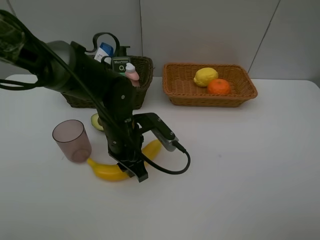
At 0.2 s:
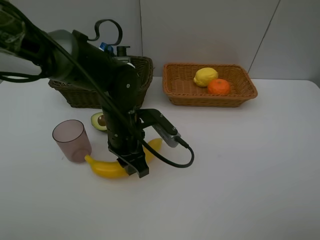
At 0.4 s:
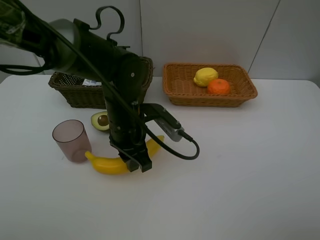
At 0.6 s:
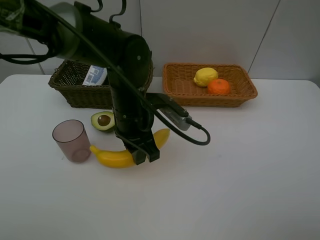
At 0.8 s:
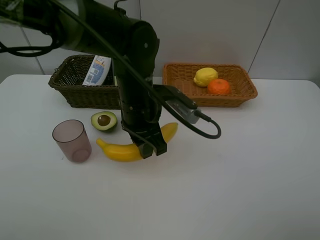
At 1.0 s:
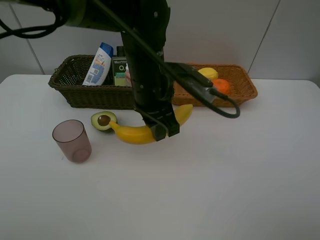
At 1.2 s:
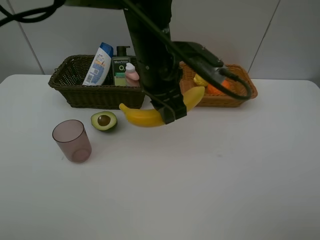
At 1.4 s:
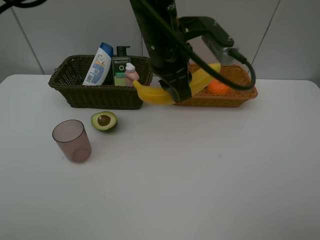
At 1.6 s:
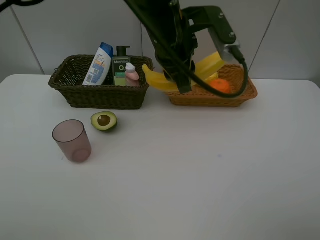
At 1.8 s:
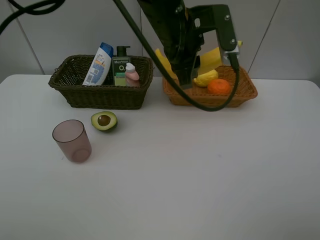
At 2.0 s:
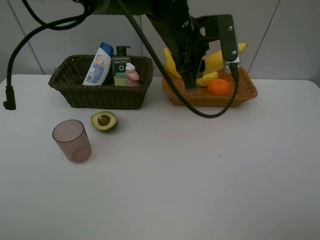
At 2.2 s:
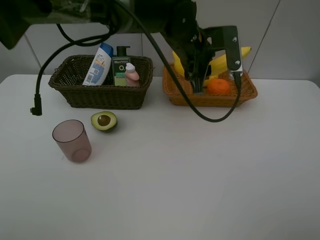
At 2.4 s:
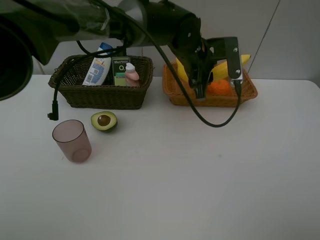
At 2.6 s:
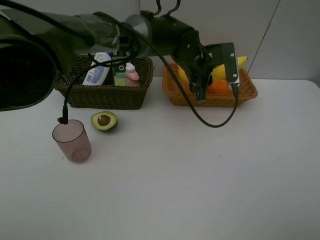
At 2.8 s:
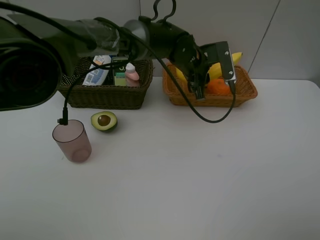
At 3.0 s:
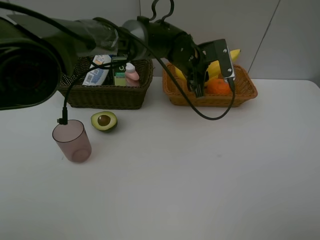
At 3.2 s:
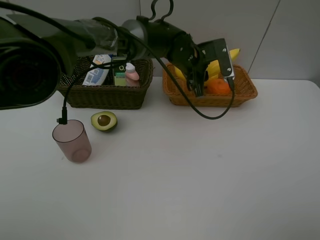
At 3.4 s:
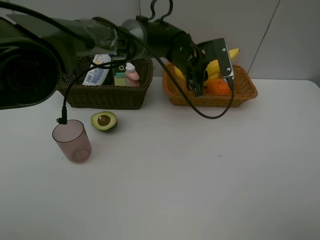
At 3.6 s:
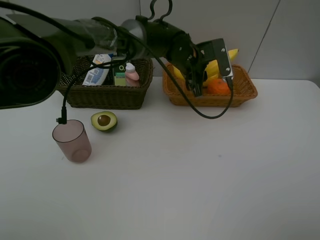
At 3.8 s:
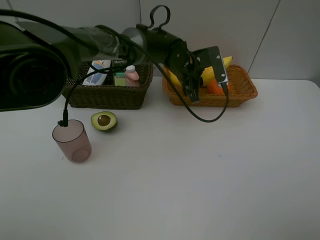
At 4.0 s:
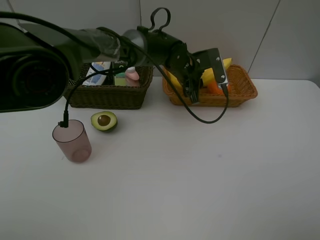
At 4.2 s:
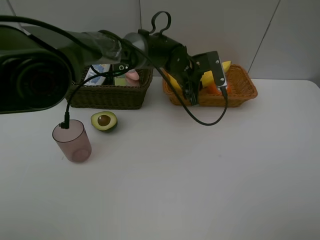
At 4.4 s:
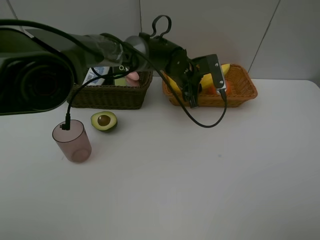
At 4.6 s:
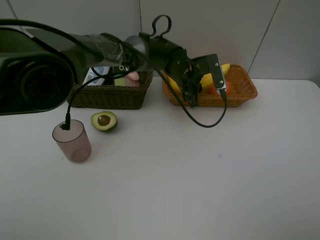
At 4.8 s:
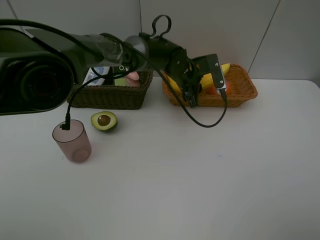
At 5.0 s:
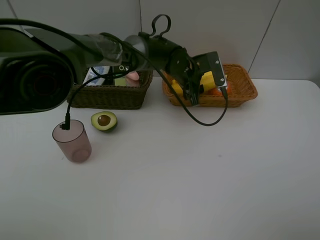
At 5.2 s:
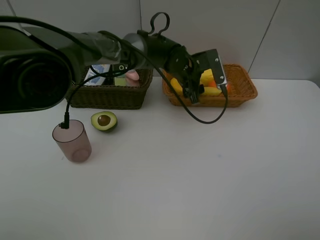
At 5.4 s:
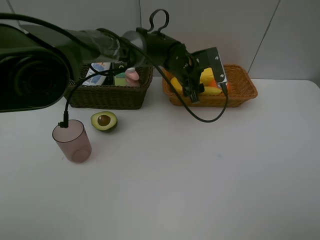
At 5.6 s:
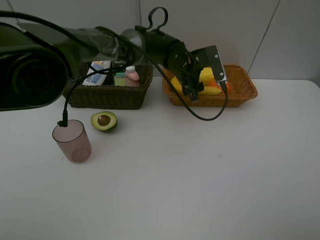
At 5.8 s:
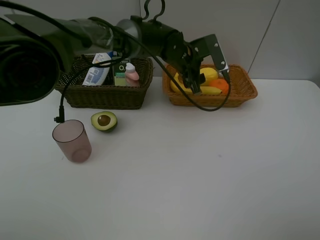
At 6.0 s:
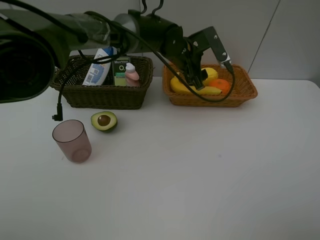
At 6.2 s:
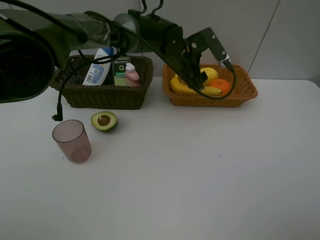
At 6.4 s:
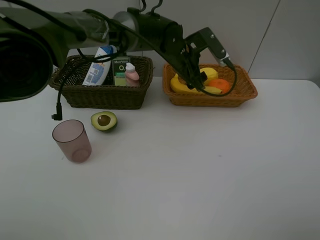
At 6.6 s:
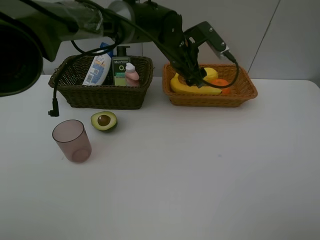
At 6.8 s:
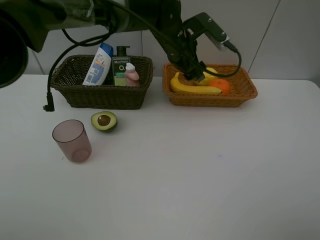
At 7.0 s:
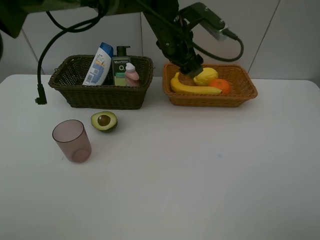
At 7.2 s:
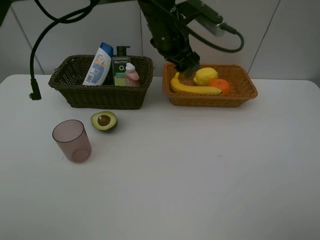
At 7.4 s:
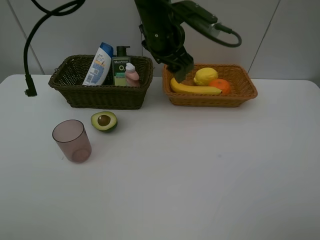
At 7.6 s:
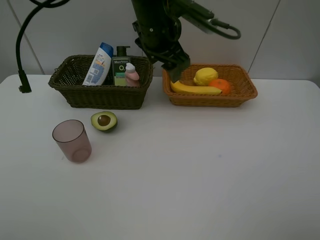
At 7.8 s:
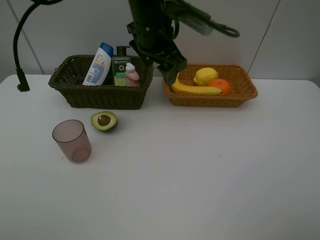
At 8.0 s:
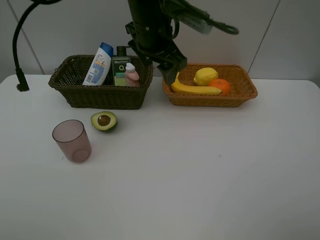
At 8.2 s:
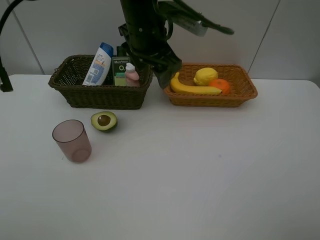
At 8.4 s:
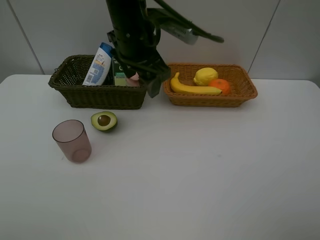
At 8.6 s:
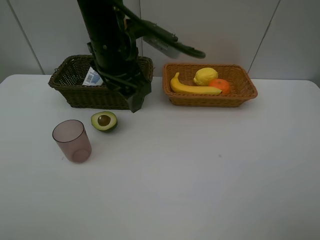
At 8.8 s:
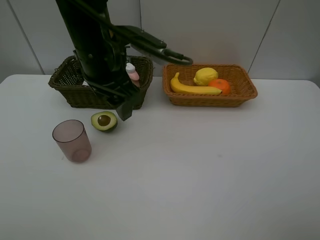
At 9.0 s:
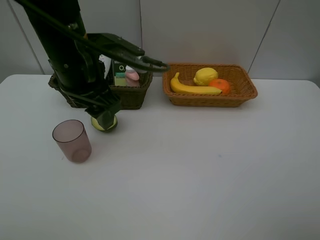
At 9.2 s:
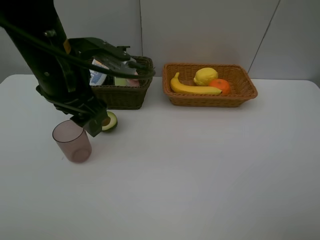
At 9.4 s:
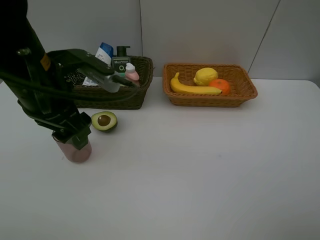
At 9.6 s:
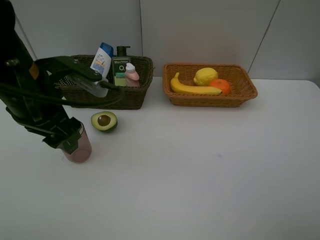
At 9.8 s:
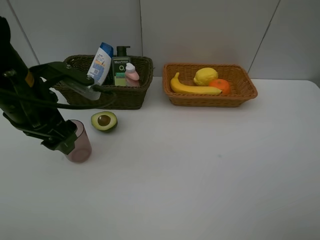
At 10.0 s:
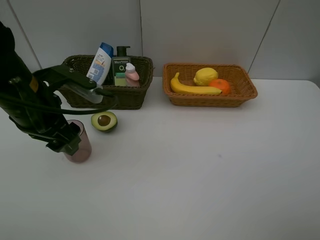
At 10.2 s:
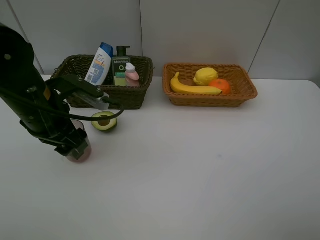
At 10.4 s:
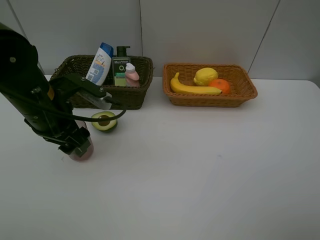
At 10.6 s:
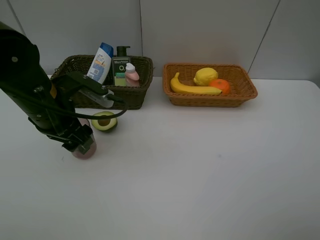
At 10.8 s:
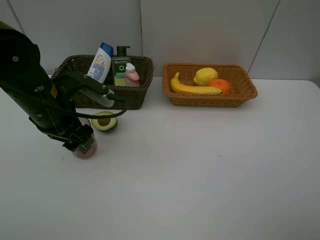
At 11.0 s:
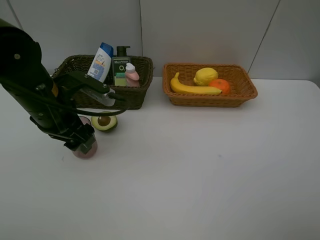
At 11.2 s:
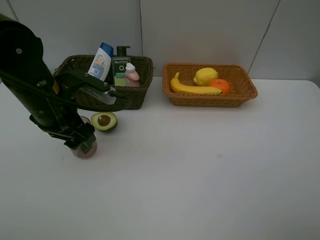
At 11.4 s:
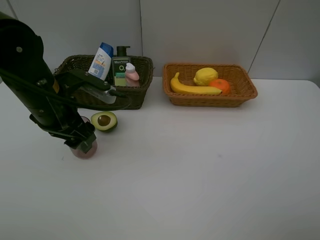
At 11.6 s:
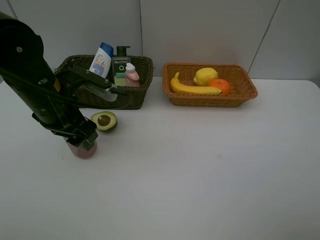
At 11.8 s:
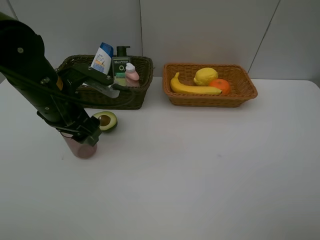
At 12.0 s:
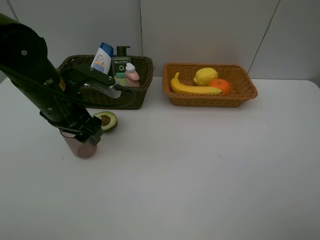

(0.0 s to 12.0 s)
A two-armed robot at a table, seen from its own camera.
Task of the whole recording: Place multiple objects separately in different baskets.
Step, 0.6 s - 6.0 s: Place the banana in the light basket with left gripper.
0.0 s - 1.6 s: The left gripper shifts roughly 20 cm upward, to the right and forward.
1.6 s - 3.0 s: The left gripper travels downward and forward by about 15 cm.
3.0 s - 4.4 s: The grippers make only small movements.
4.4 s - 6.0 s: The left gripper opens its fingers.
6.0 s - 7.6 s: The left gripper moves upward, backward and to the left, about 15 cm.
7.6 s - 9.0 s: The left gripper shifts some 15 cm to the left and backward.
9.0 s - 10.4 s: The left gripper moves downward and to the left, roughly 10 cm.
10.4 s - 12.0 s: There are only small adjustments of the grippers.

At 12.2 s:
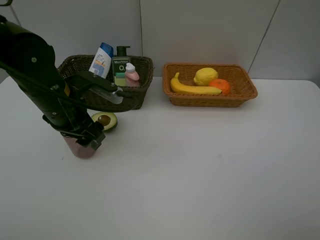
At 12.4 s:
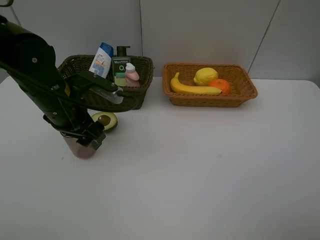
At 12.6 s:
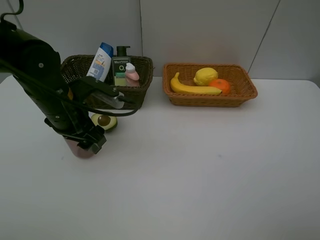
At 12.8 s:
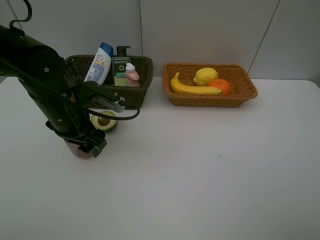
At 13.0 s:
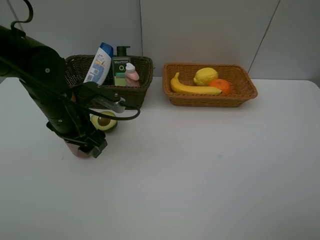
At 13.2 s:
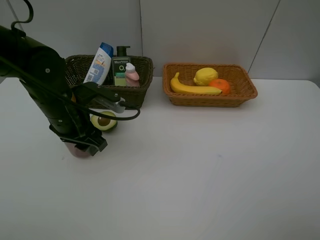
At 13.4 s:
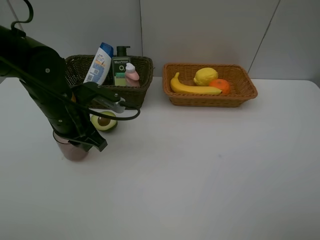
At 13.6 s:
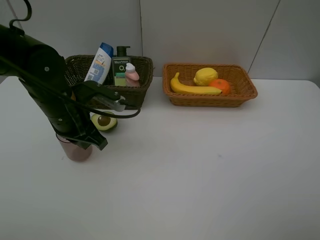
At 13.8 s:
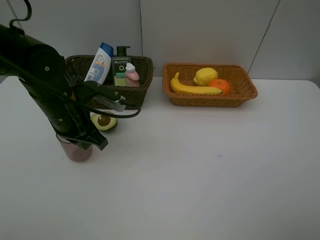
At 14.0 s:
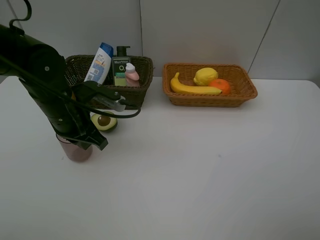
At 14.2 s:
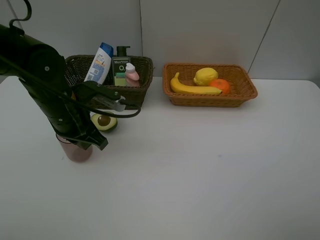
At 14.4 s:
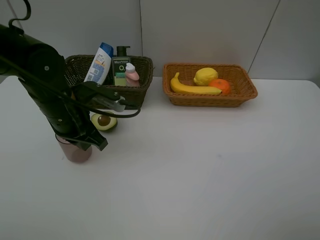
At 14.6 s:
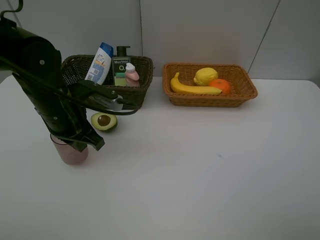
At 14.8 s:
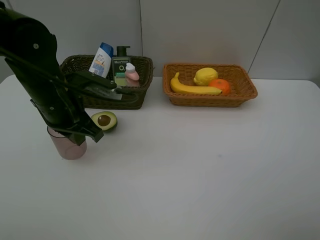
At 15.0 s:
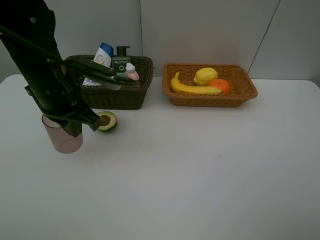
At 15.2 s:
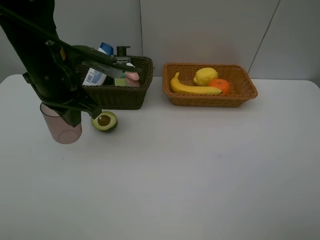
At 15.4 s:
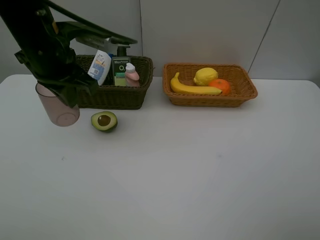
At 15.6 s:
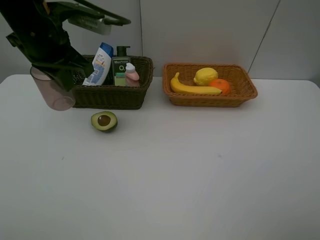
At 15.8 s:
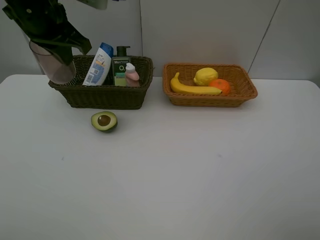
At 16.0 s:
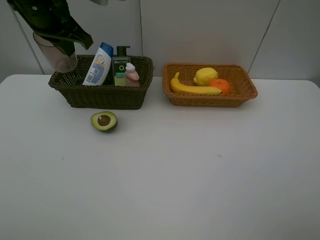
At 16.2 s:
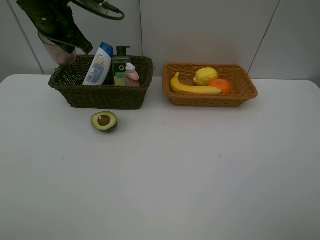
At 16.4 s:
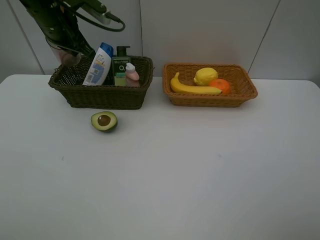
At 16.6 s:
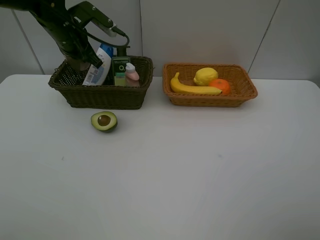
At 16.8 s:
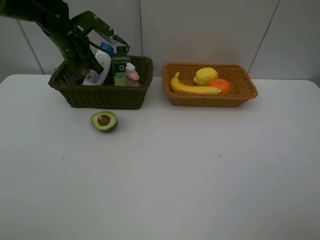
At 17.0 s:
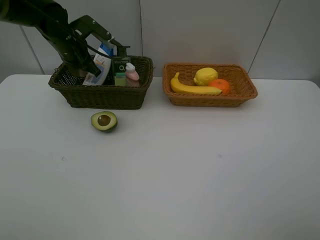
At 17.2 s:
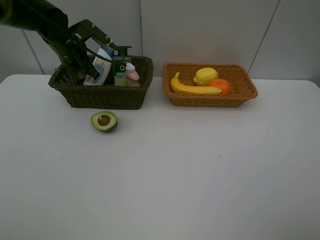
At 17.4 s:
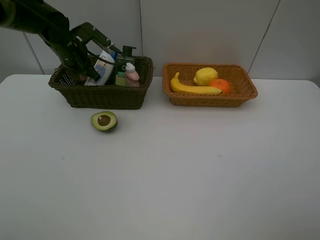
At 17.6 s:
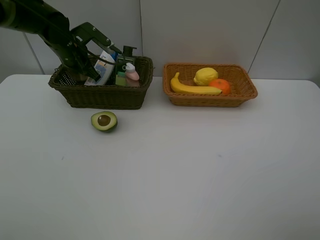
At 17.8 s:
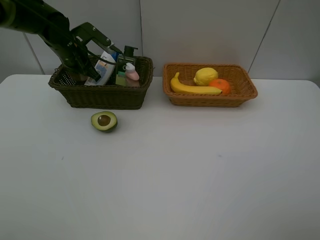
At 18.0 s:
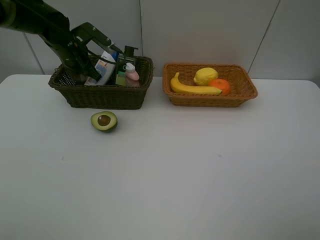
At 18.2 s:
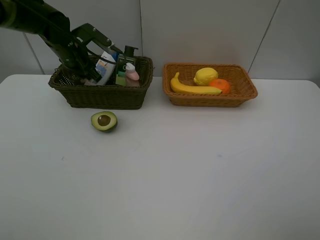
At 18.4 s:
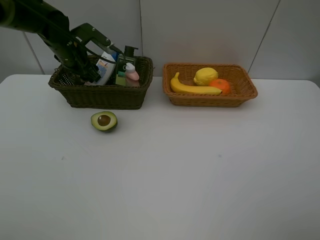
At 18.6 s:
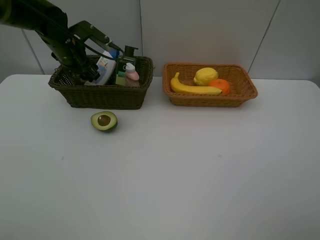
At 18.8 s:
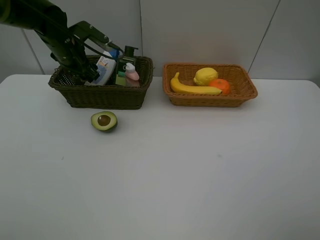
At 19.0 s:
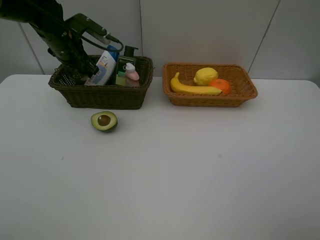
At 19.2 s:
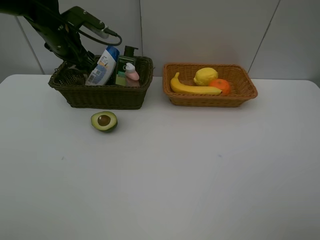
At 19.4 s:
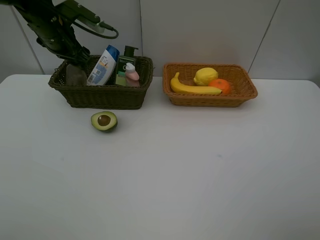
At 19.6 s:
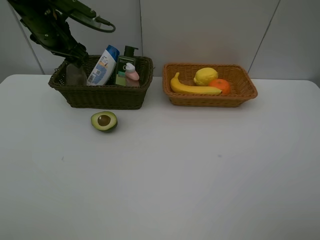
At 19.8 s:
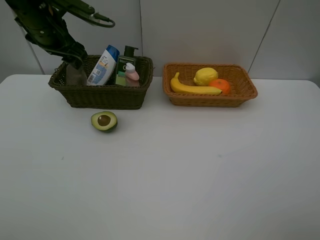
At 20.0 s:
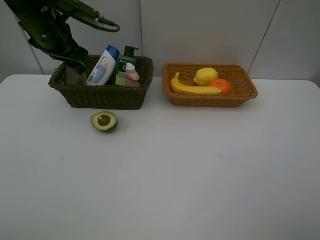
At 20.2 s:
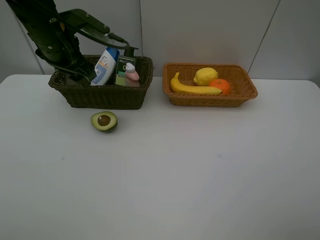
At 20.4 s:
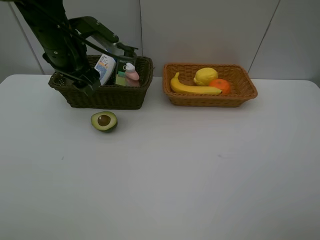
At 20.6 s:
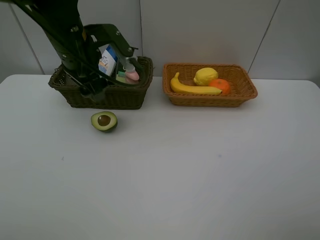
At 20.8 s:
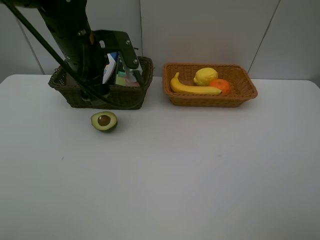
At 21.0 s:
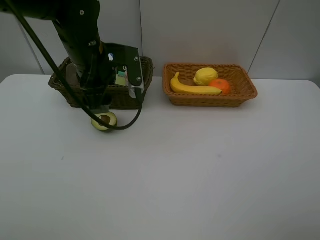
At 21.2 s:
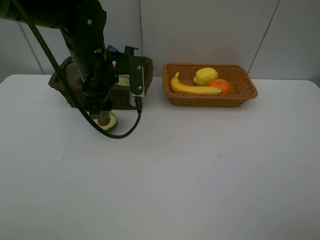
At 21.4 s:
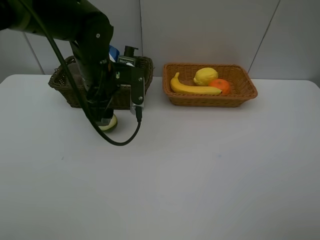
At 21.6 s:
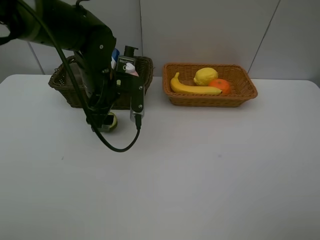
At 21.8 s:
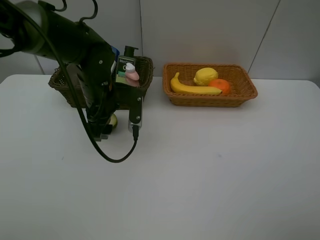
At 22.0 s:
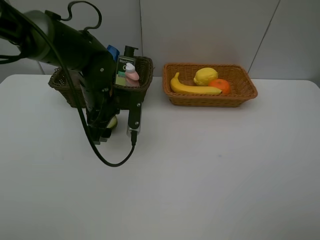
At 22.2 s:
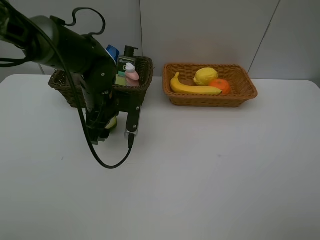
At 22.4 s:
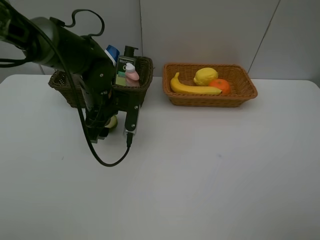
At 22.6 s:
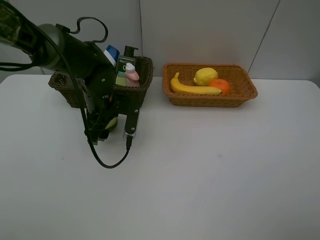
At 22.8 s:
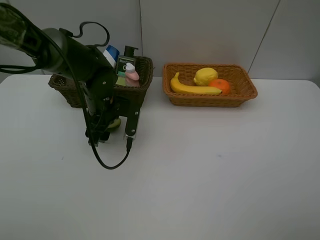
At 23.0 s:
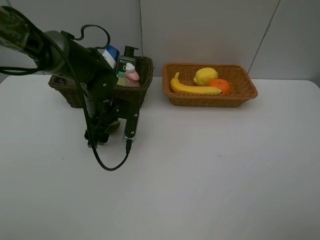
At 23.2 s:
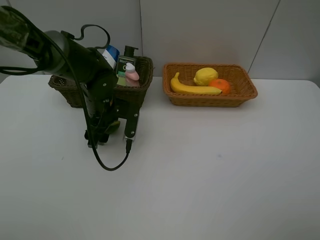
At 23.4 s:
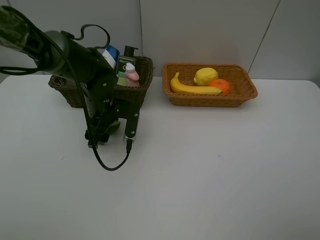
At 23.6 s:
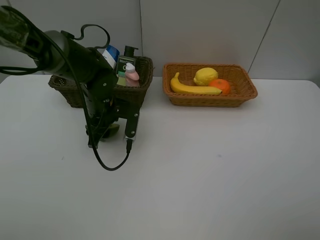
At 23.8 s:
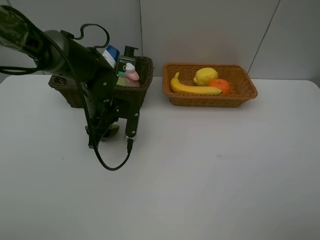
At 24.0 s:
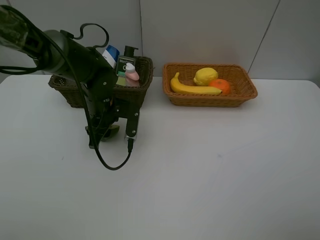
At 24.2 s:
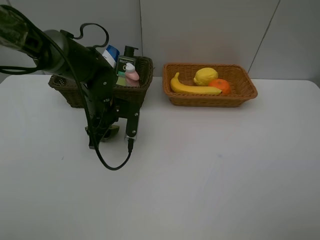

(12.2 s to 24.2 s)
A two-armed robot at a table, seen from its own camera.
Task of the whole recording: Place multiple objects separately in different baskets.
Step, 12.2 s - 14.8 s: Pick up the red cup with left gripper.
Step, 15.0 s - 19.2 s: Place the red cup in the dark basket with left gripper.
12.2 s - 13.8 s: The left gripper closes its fingers.
13.8 s - 15.2 s: The left gripper moves upward, some 10 cm.
15.2 s - 16.6 s: The left gripper shifts some 15 cm forward.
16.6 s - 18.2 s: The left gripper opens up.
18.2 s - 19.8 s: The left gripper heads upward, covering approximately 10 cm.
19.8 s - 21.2 s: The left gripper moves to the right and backward, approximately 15 cm.
21.2 s - 22.6 s: The left gripper moves downward, some 10 cm.
22.6 s - 24.2 s: Neither gripper changes place.
